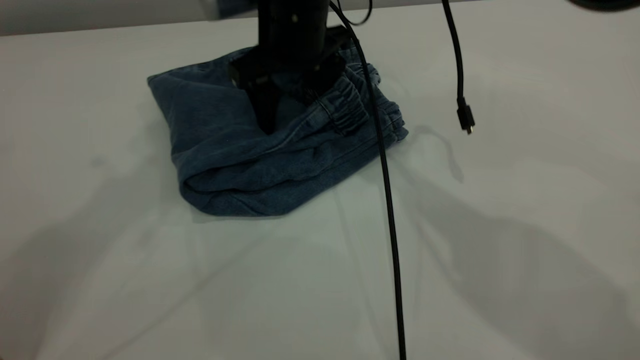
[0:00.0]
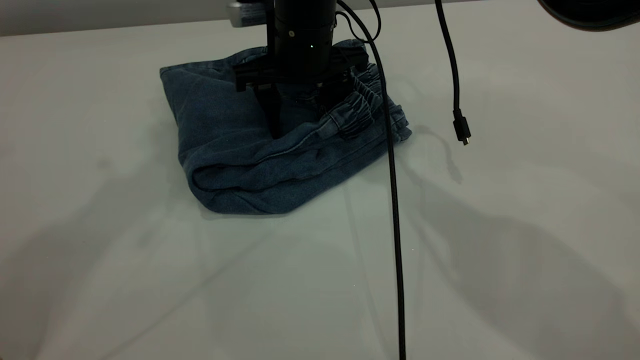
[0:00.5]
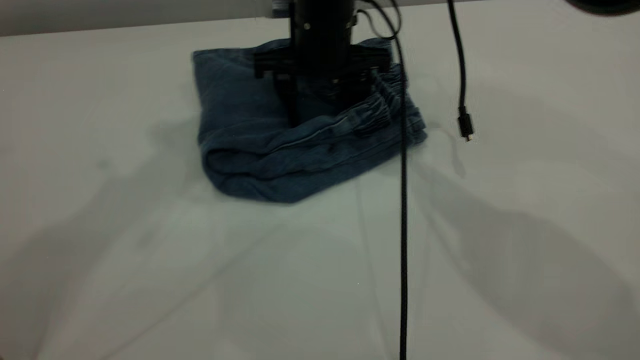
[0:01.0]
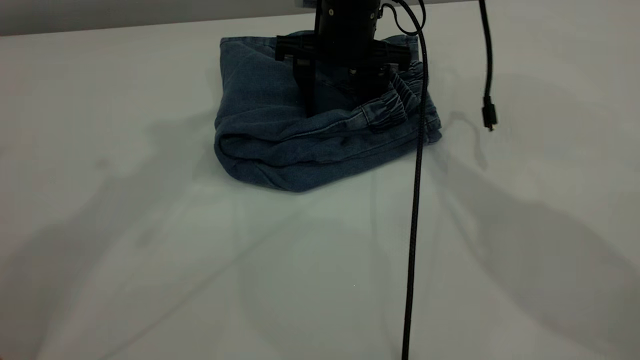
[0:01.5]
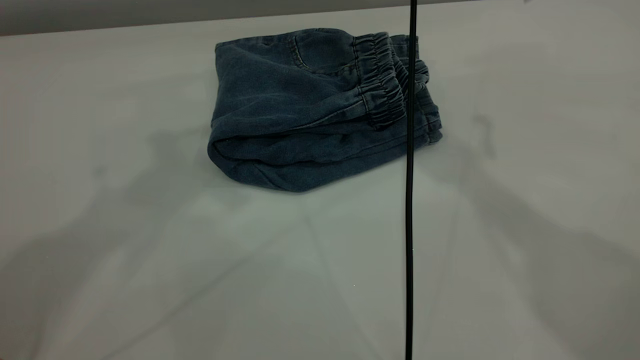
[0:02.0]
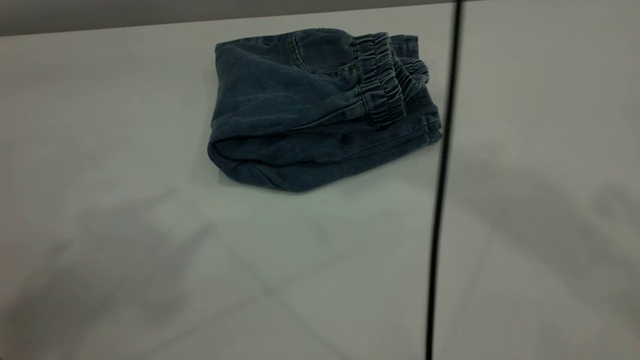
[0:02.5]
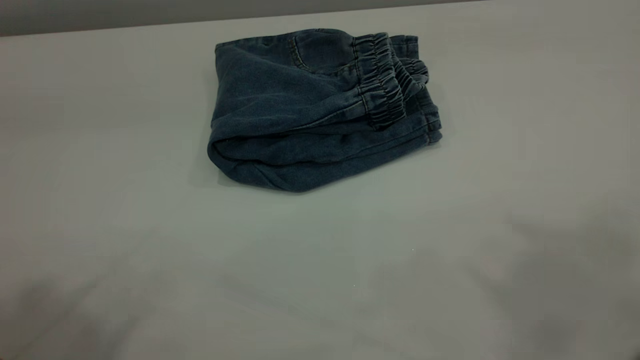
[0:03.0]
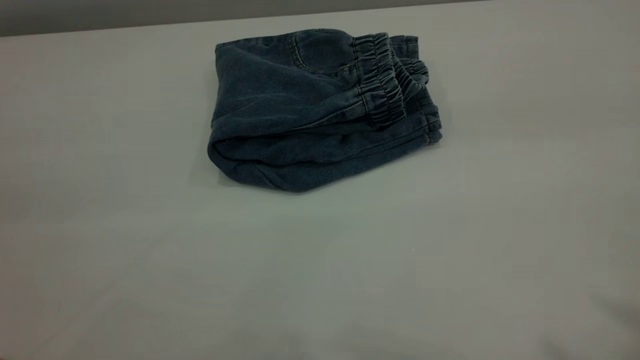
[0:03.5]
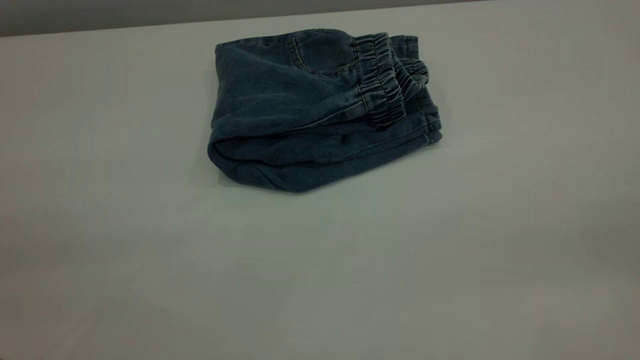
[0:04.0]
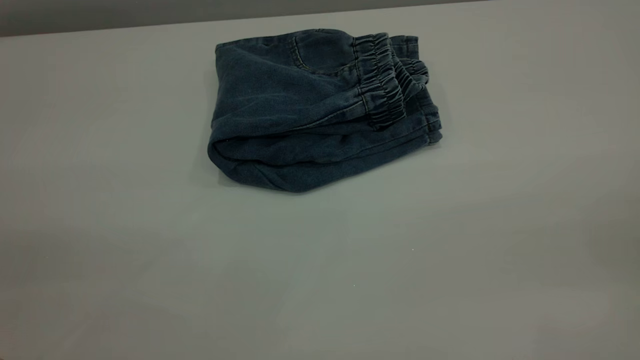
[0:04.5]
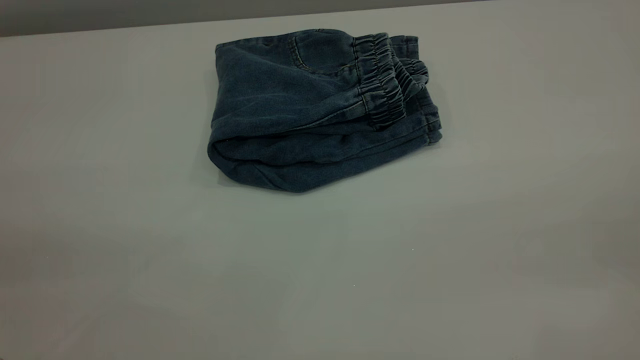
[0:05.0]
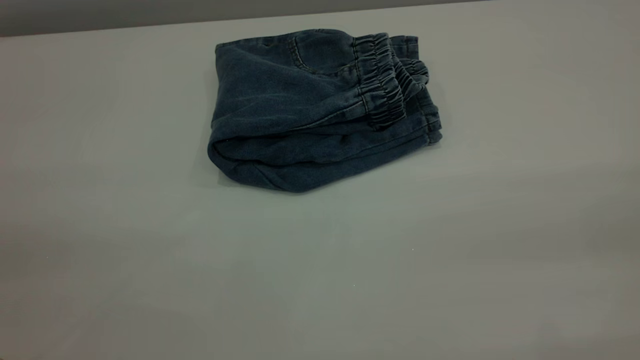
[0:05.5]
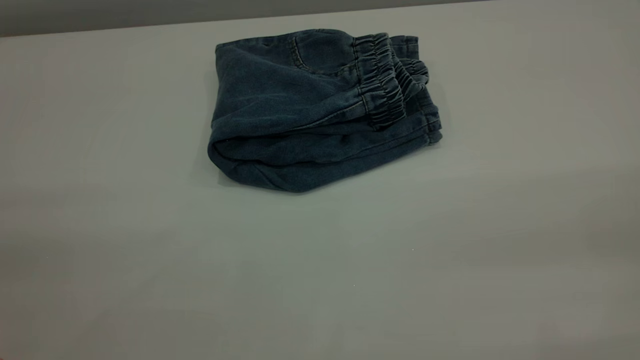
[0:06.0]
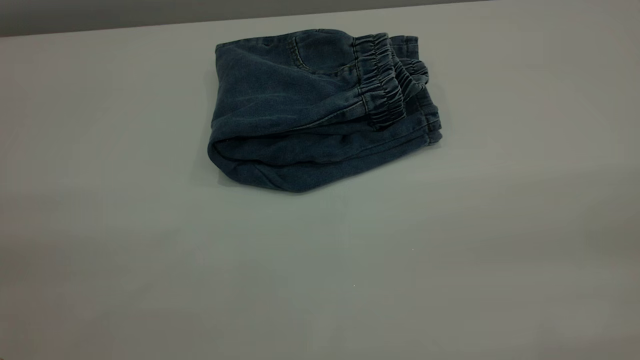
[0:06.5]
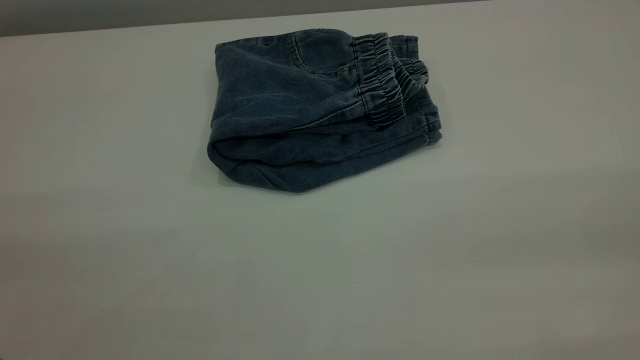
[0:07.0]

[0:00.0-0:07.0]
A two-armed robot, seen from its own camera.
0:00.0 to 0:02.0: The right gripper shifts some 20 cm upward.
0:02.0 to 0:03.5: The left gripper travels backward by some 25 cm; the right gripper moves backward and to the right, about 40 cm.
